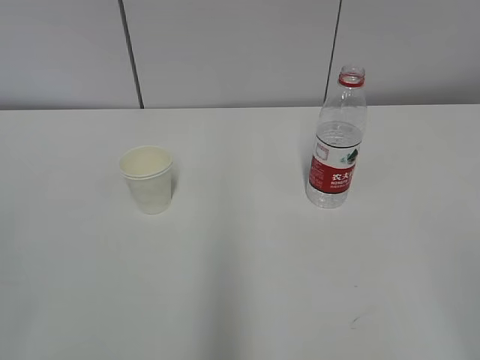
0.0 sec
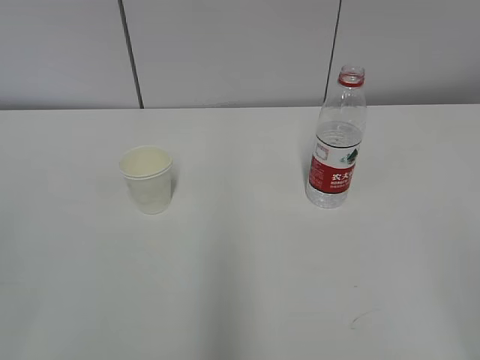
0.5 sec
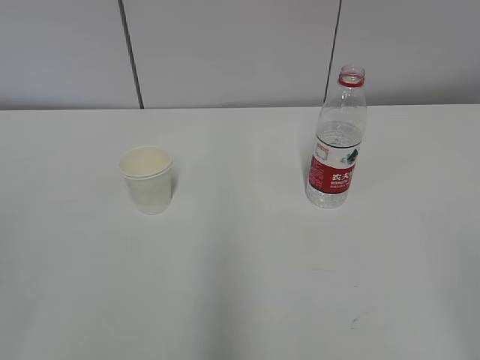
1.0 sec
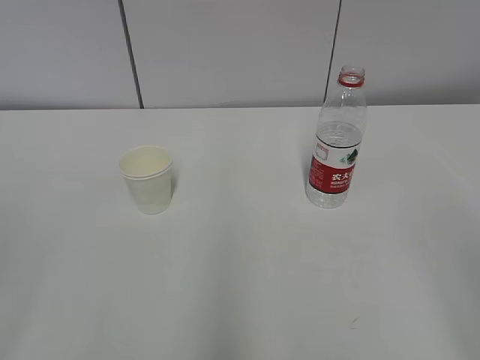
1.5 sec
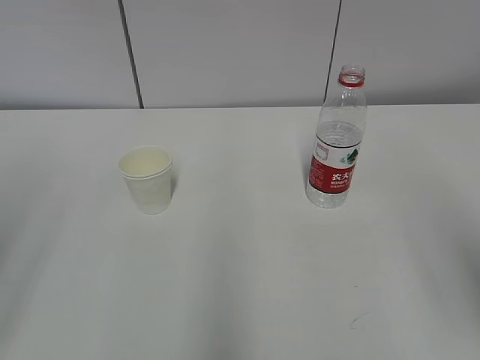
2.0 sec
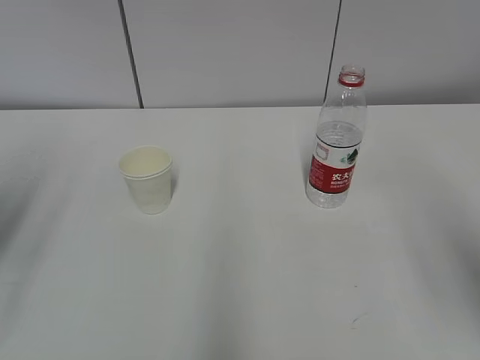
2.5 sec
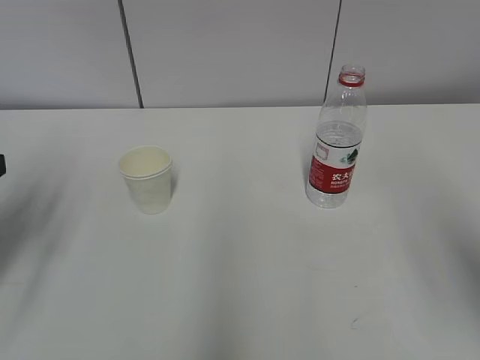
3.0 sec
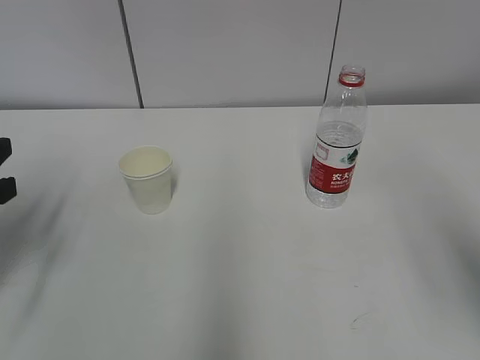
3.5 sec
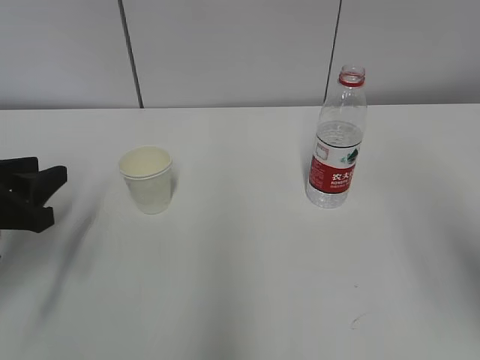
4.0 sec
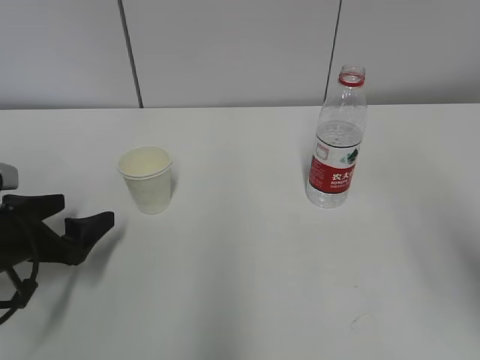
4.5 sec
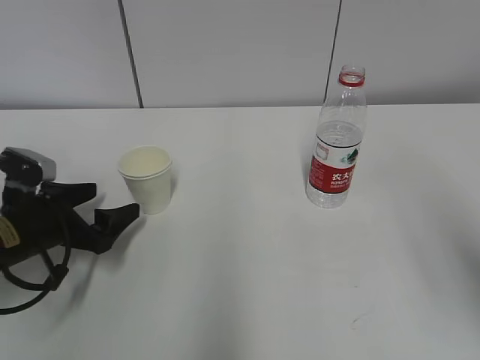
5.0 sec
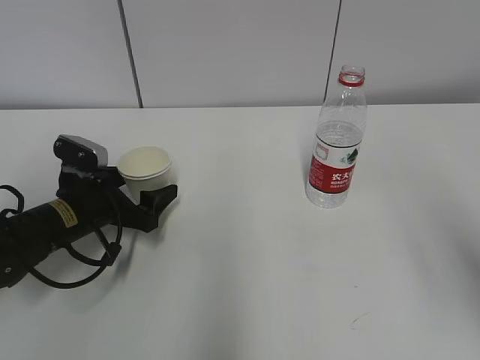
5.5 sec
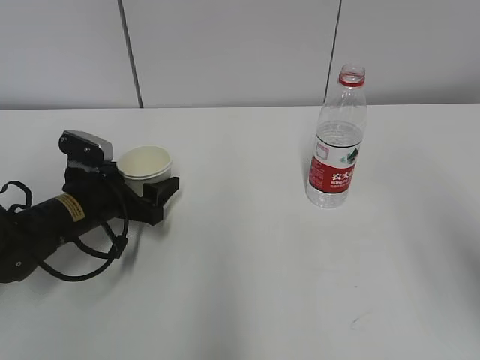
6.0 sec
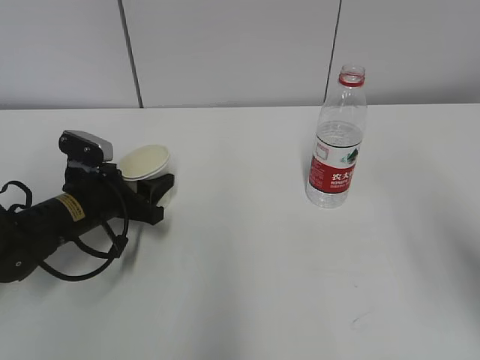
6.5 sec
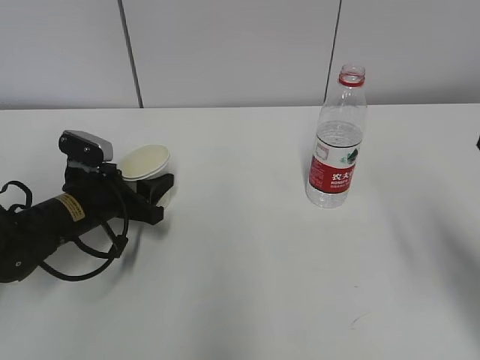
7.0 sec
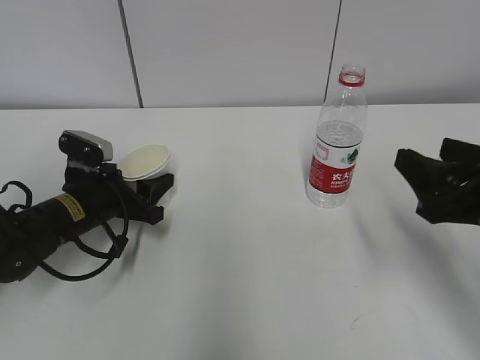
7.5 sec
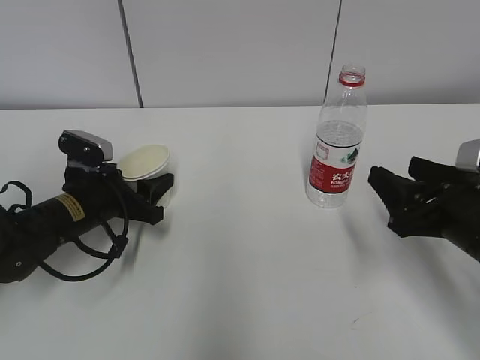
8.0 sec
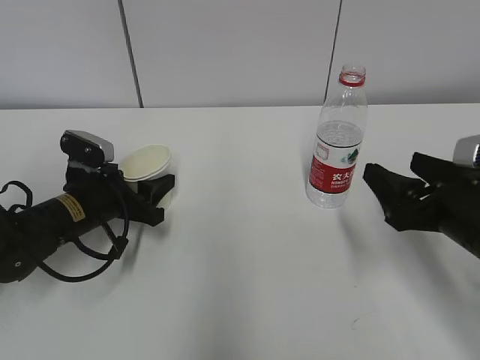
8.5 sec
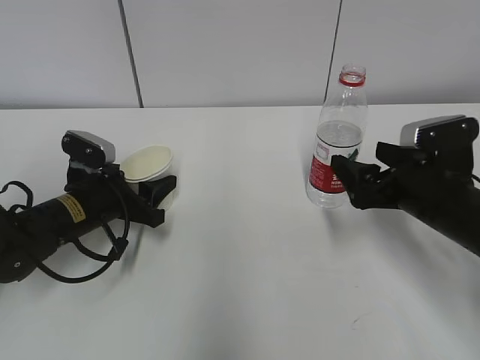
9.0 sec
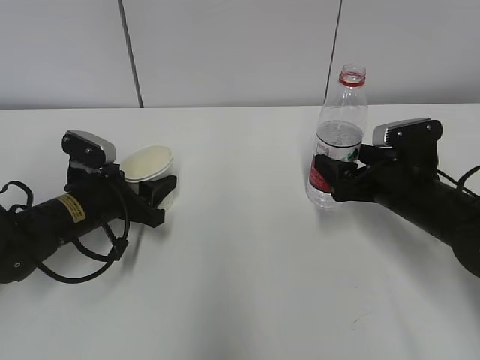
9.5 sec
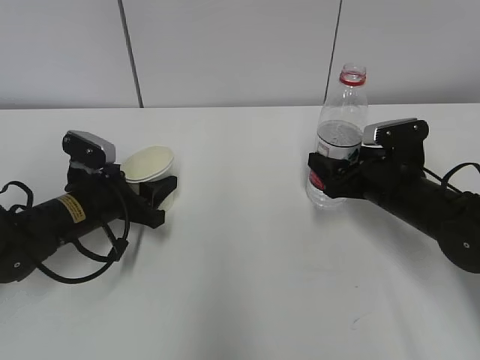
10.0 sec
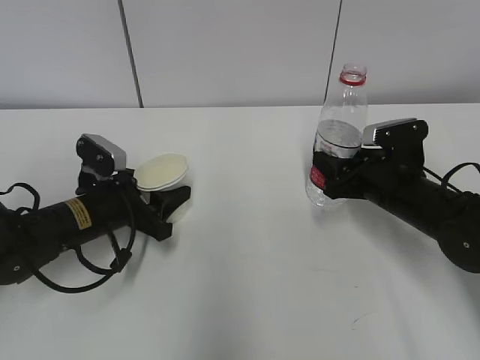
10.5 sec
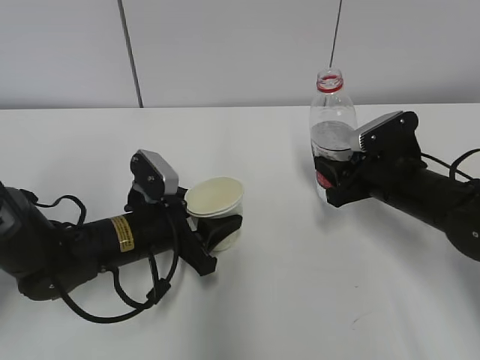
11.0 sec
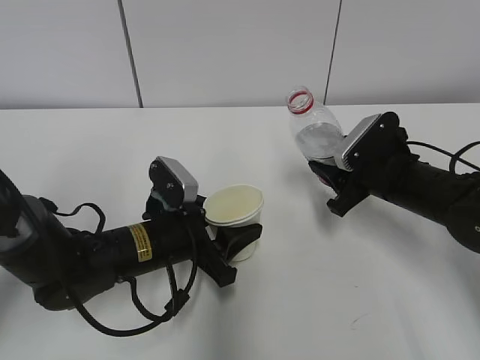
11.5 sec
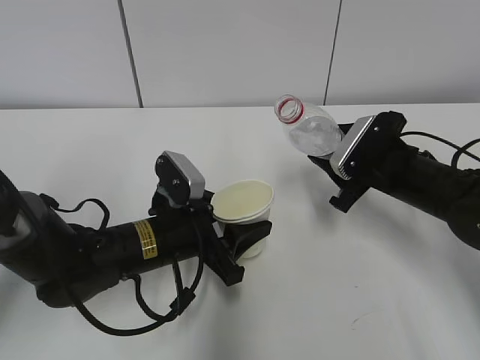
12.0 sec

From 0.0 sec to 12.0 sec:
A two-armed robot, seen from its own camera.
Step, from 0.0 sec to 8.5 sec: Grab the paper cup with the left hand.
From 2.0 sec to 4.0 sec: The left gripper shifts roughly 20 cm downward and forward.
From 4.0 sec to 6.0 sec: The left gripper goes approximately 15 cm forward, downward and to the right, and opens.
From 6.0 sec to 8.0 sec: The right gripper moves downward and forward, about 20 cm.
From 8.0 sec to 10.0 sec: The right gripper moves forward and downward, roughly 15 cm, and opens and closes again.
From 10.0 sec to 12.0 sec: The left gripper heads to the right and backward, covering some 10 cm. The right gripper closes.

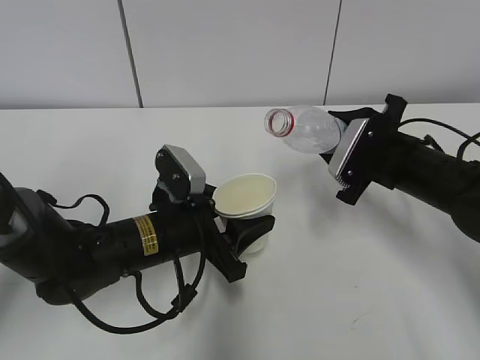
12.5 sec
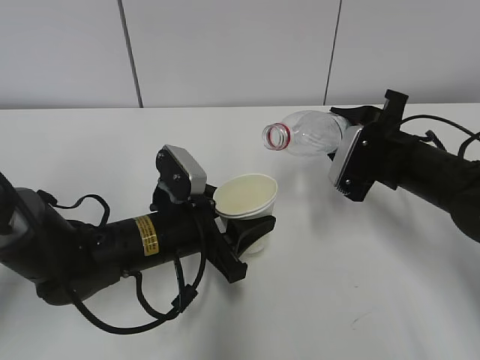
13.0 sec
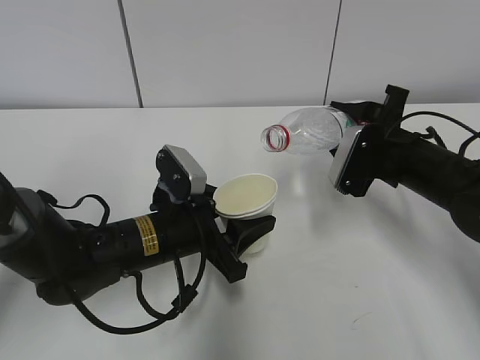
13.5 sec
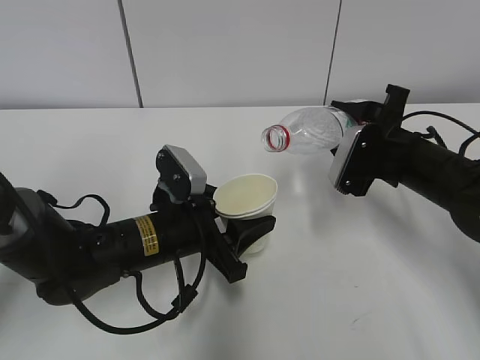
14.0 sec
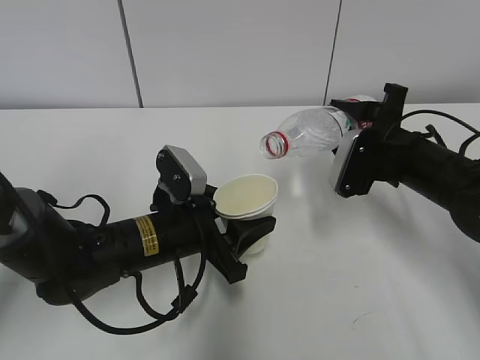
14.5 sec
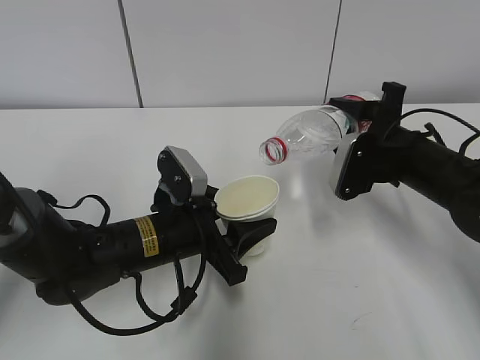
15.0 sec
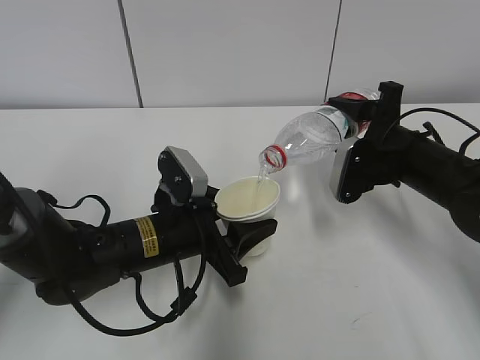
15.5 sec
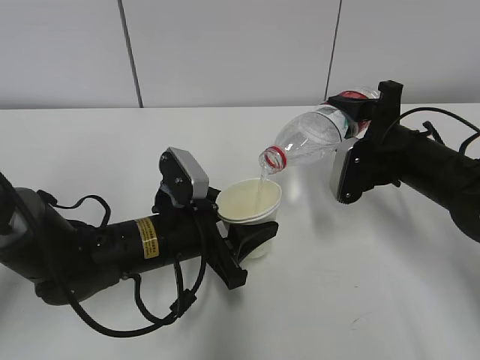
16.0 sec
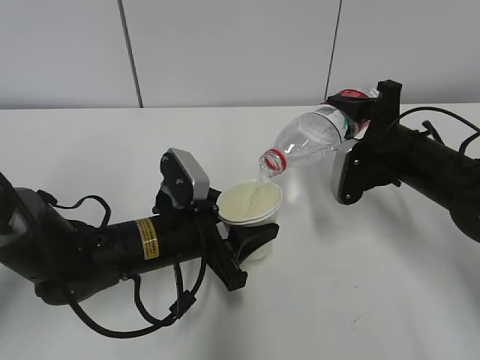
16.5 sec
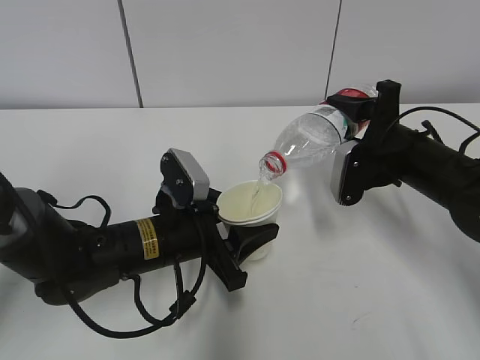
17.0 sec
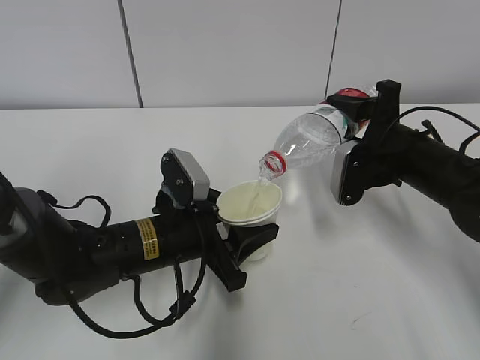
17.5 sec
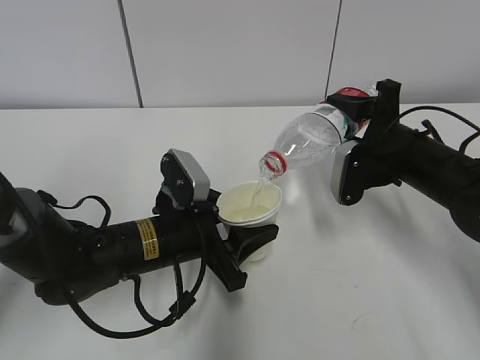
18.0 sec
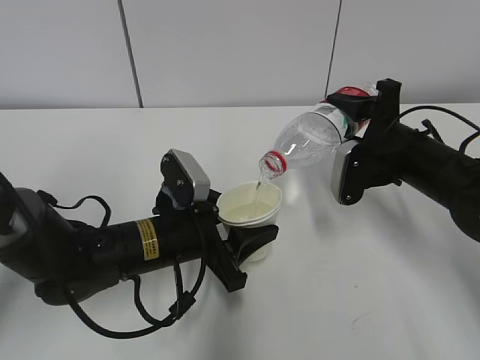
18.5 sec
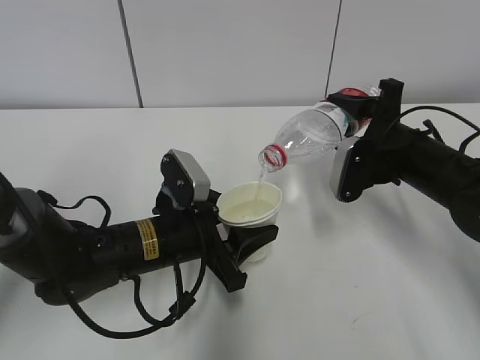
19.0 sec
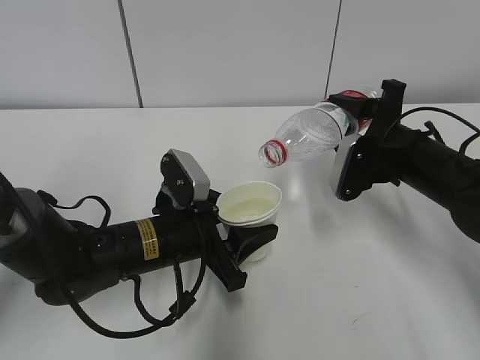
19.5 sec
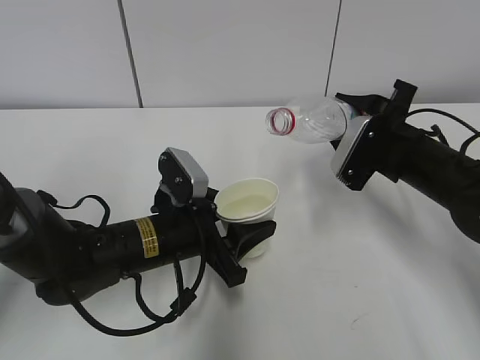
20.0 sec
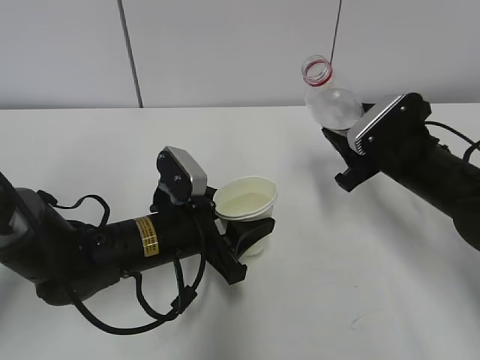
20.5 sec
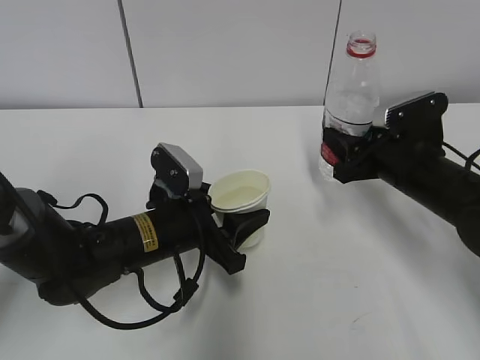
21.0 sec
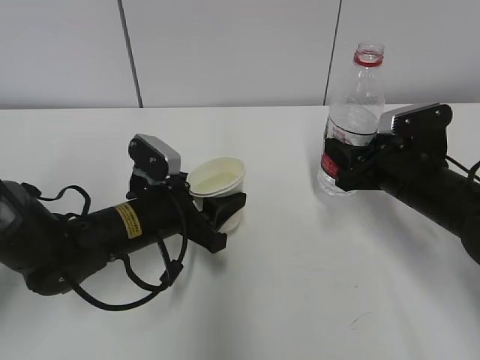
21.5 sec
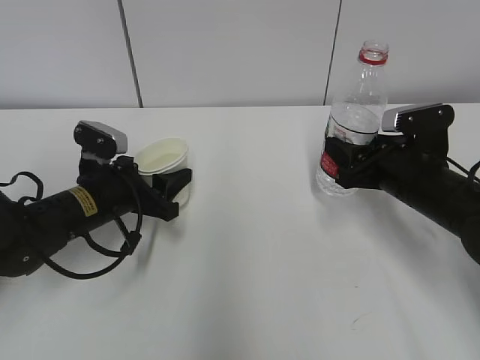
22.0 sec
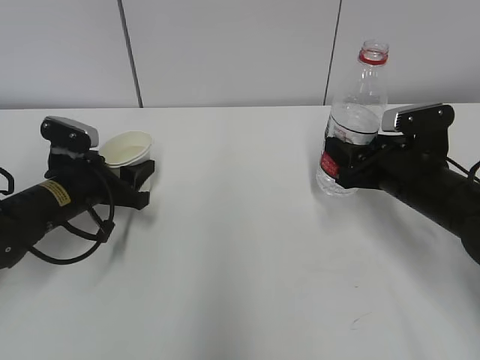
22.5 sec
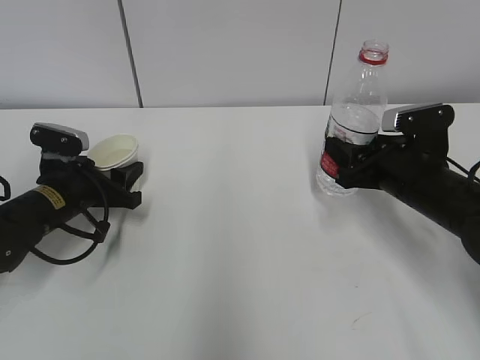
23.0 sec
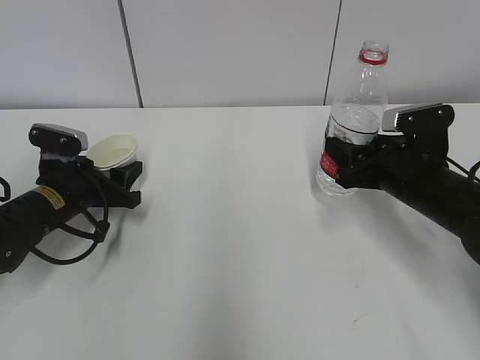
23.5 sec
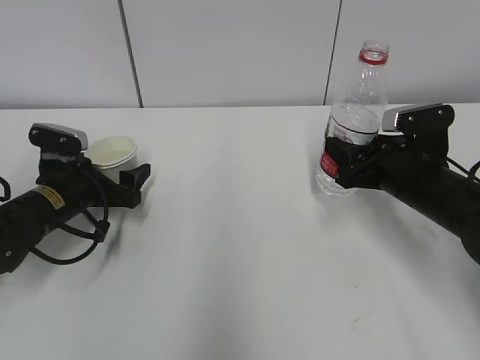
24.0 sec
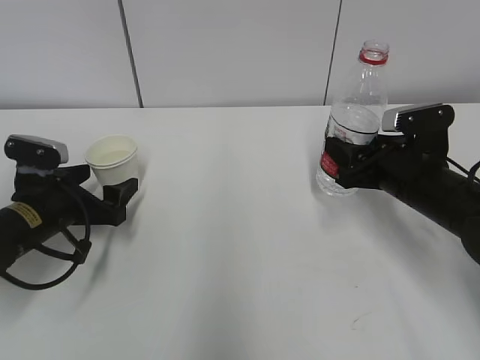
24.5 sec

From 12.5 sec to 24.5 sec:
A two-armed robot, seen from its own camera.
Step, from 13.0 sec to 16.0 sec: Fill water with the left hand.
Step, from 13.0 sec to 16.0 sec: Pour water with the right hand.
Step, from 18.0 sec to 19.5 sec: Place the paper cup with the left hand.
Step, from 20.0 sec to 23.0 sec: Place the water bottle with the right hand.
From 12.5 sec to 14.5 sec: The grippers move only a little.
From 14.5 sec to 16.5 sec: The grippers move only a little.
From 16.5 sec to 18.5 sec: Both grippers stay about where they are.
From 20.5 sec to 22.5 sec: The left gripper heads to the left and forward, covering approximately 15 cm.
From 22.5 sec to 24.5 sec: The left gripper opens its fingers.

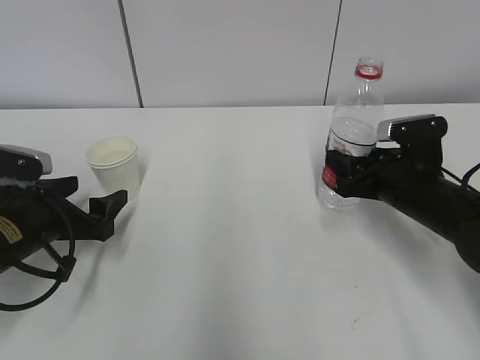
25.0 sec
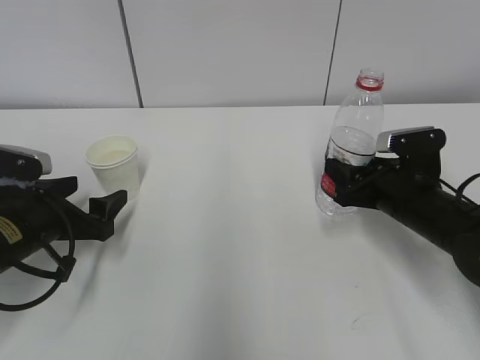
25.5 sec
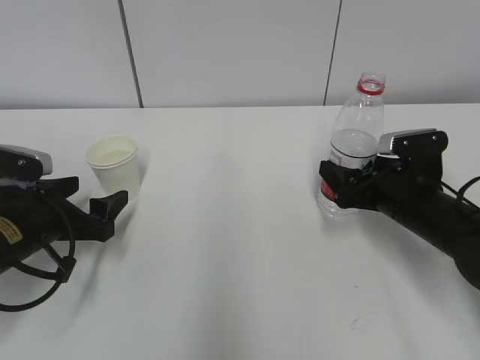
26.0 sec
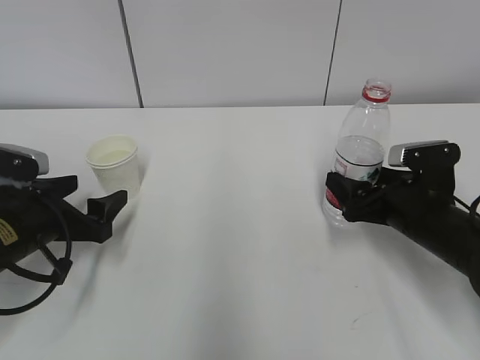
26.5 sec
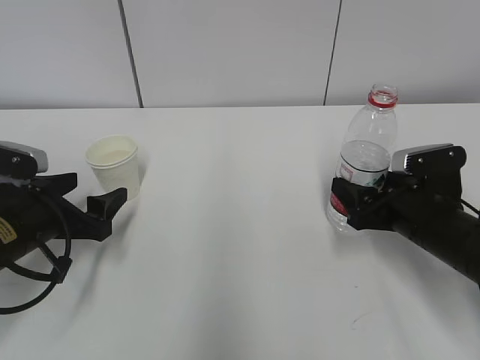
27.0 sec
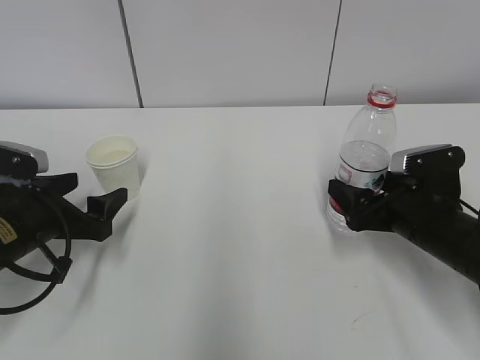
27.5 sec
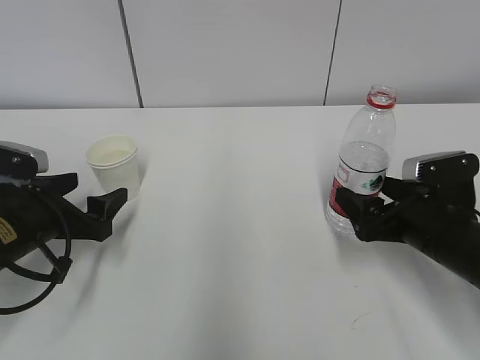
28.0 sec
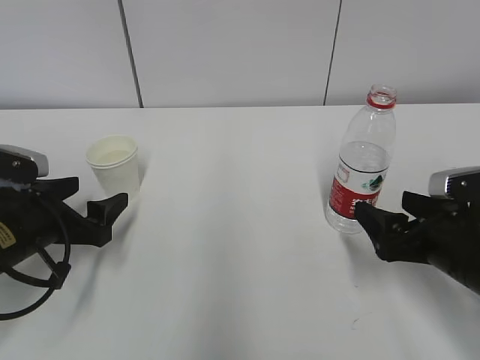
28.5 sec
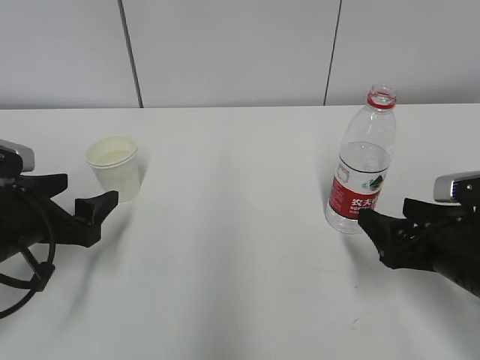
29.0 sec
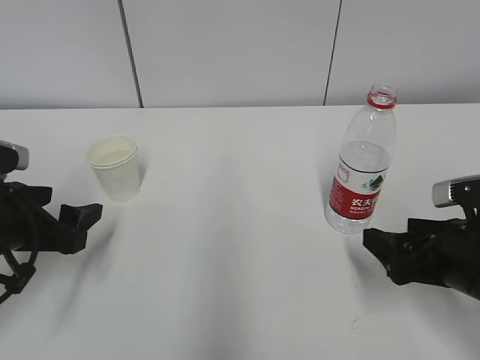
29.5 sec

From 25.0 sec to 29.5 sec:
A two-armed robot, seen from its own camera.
From 25.0 sec to 27.0 sec: The right gripper opens up.
From 27.0 sec to 29.5 sec: The right gripper travels backward by approximately 10 cm.
